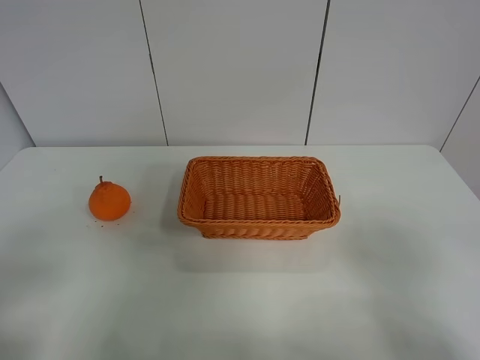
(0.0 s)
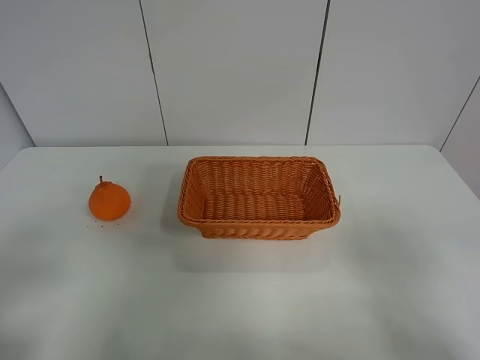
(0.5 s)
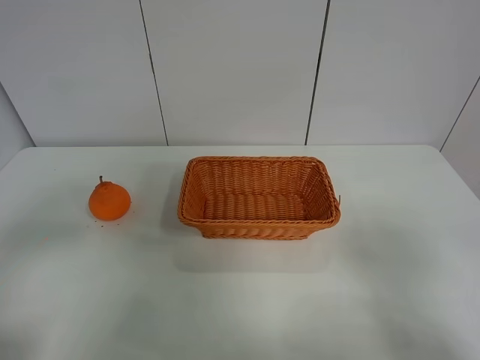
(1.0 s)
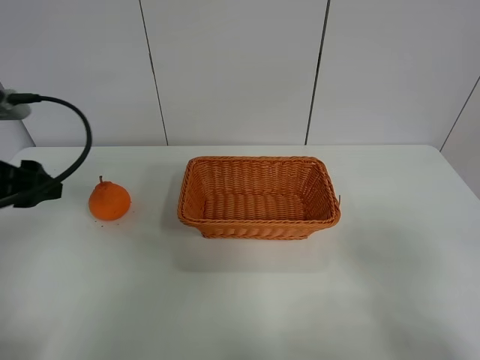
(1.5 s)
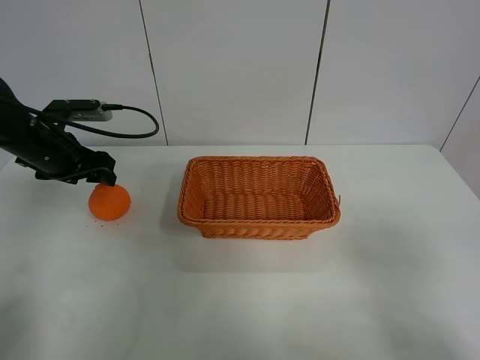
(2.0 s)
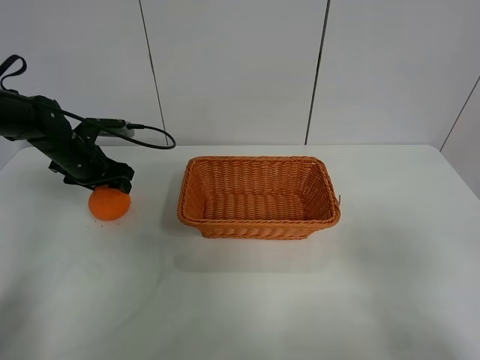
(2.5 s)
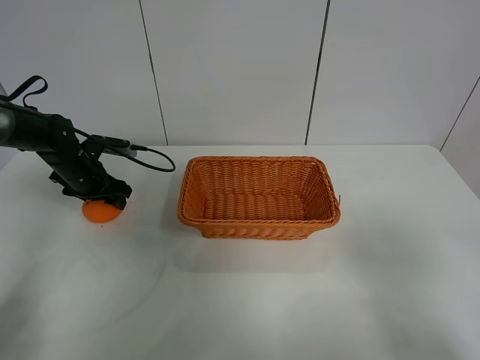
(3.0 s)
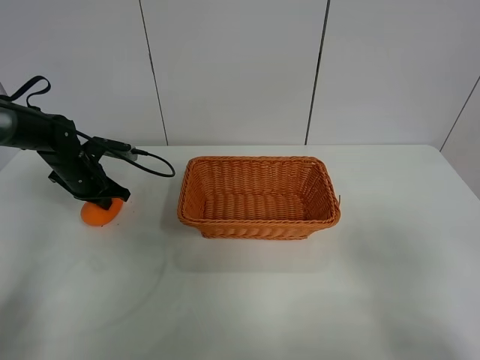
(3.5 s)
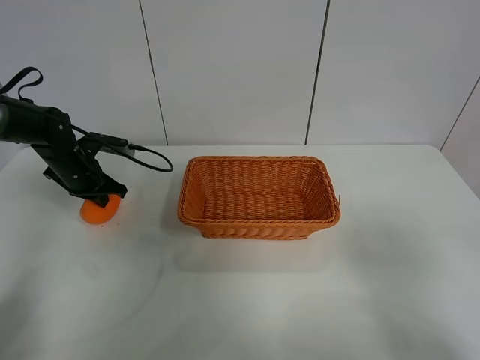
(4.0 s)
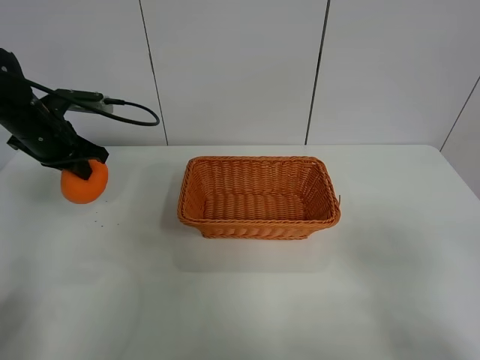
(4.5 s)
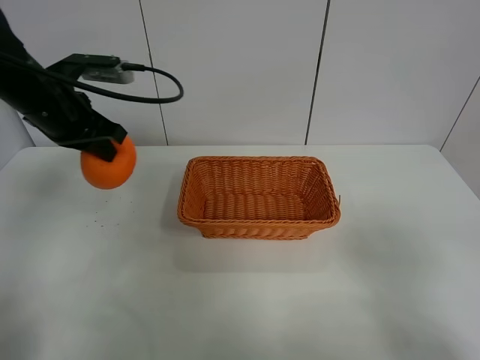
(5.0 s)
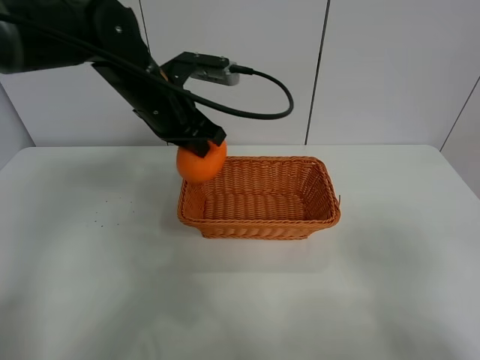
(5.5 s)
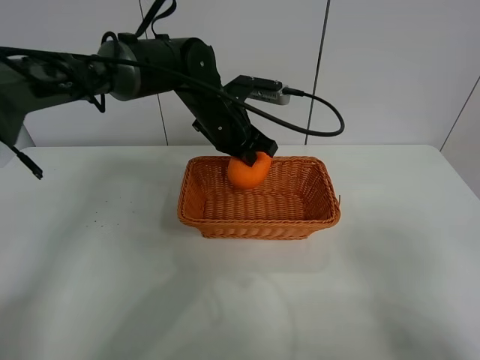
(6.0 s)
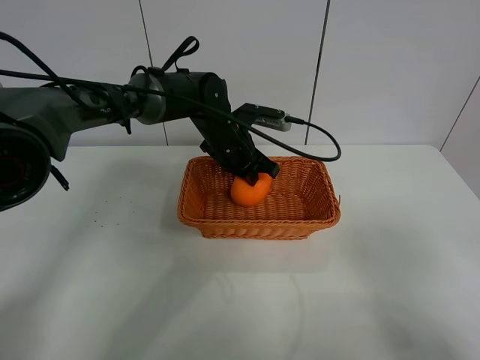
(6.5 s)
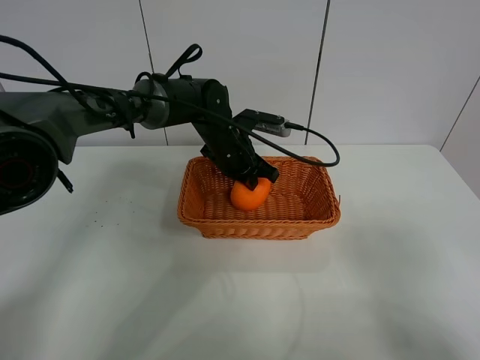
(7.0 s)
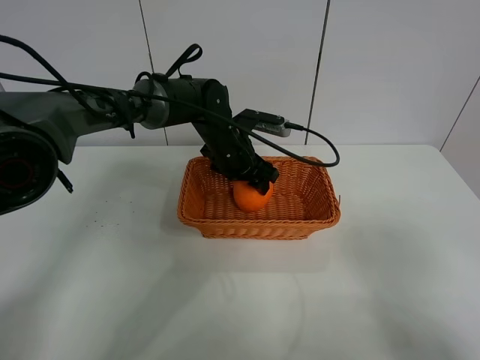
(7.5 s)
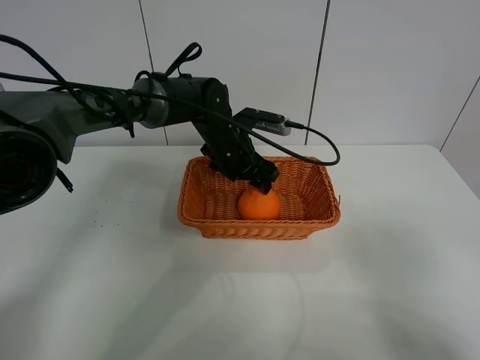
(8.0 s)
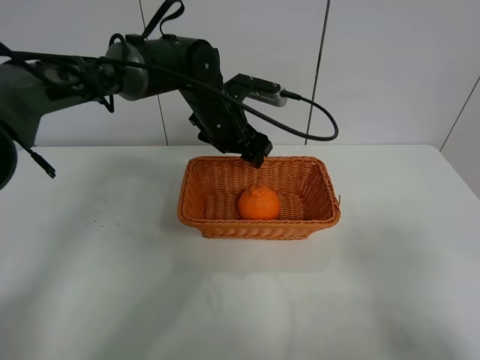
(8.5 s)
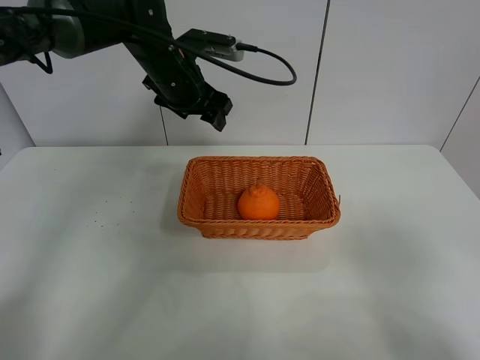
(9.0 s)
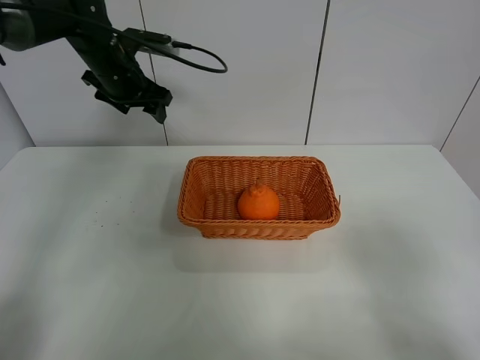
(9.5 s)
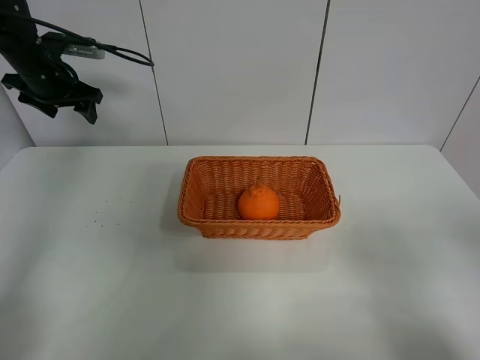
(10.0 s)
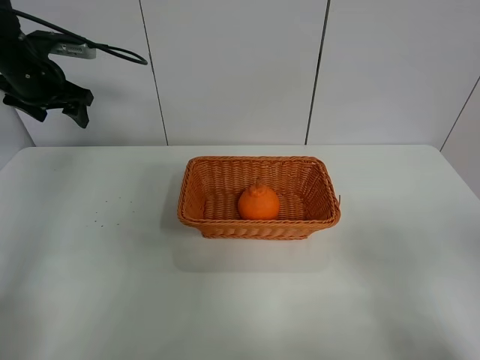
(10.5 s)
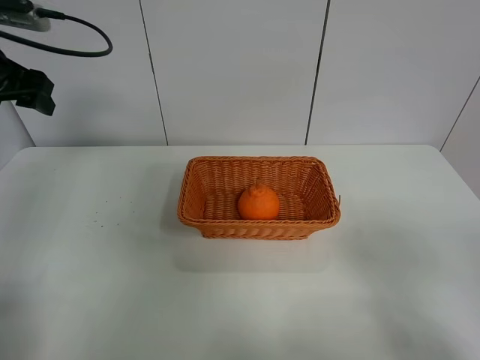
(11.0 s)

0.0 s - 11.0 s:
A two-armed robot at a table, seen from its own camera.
Task of the whole recording: left gripper grabs oranges and puts them in the basket.
Step, 0.0 s - 3.5 s: Grasp the orange with left gripper.
Step, 4.0 s - 9.0 s: Place the orange in the basket with left gripper.
0.0 s - 2.0 s: The left gripper travels forward by about 35 cm.
2.0 s - 3.5 s: The left gripper is displaced downward and forward by approximately 10 cm, and closes.
3.5 s - 5.5 s: The left gripper heads to the right and upward, covering roughly 25 cm.
5.5 s - 7.5 s: The left gripper moves downward, to the right and forward, approximately 15 cm, and opens.
7.5 s - 9.0 s: The left gripper heads upward and to the left, covering some 15 cm.
9.0 s - 11.0 s: The left gripper is displaced to the left by approximately 20 cm.

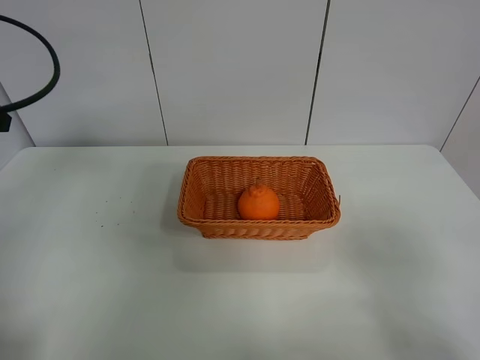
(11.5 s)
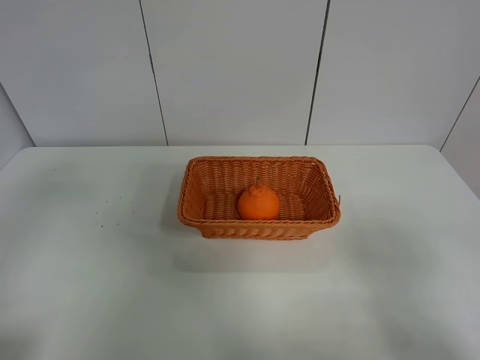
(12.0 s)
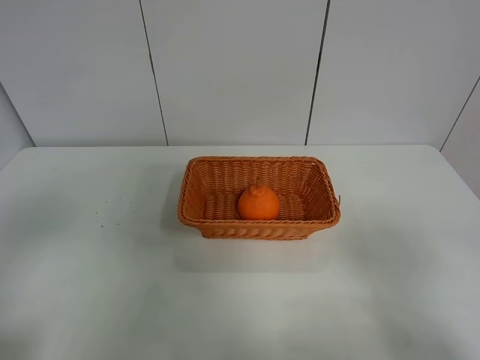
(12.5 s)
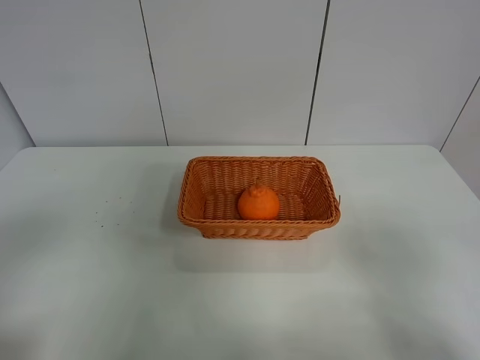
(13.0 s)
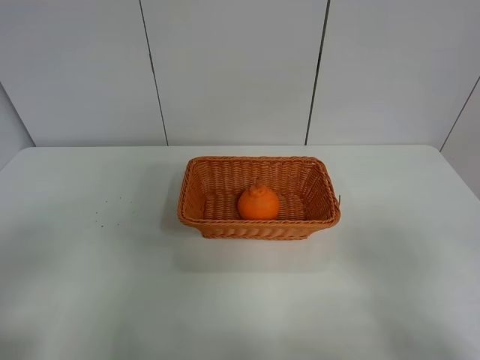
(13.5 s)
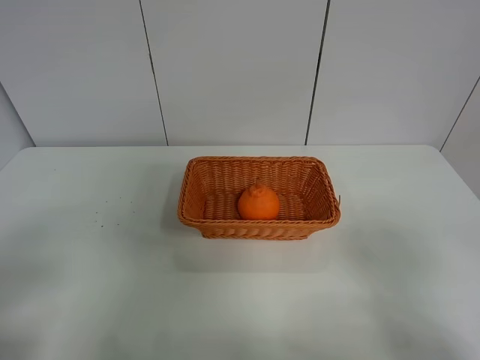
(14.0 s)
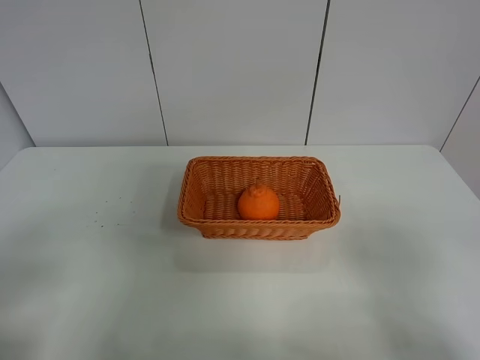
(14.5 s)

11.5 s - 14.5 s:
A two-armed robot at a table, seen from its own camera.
Task of the whole recording: left gripper grabs oranges and puts them in the basket.
11.5 s - 13.0 s: The left gripper is displaced backward by some 25 cm.
